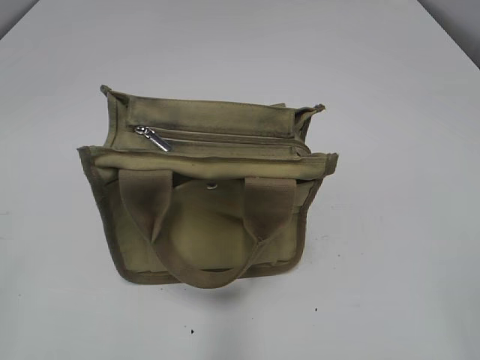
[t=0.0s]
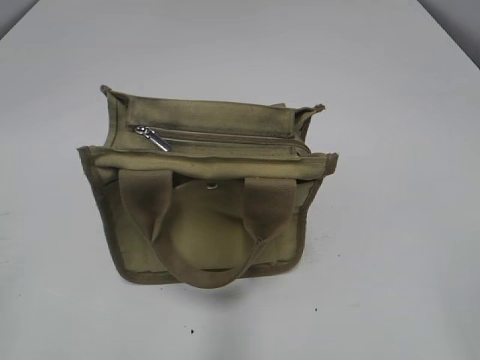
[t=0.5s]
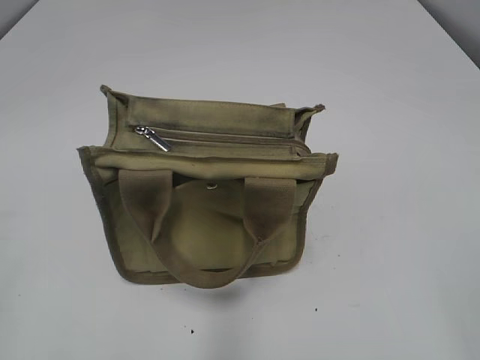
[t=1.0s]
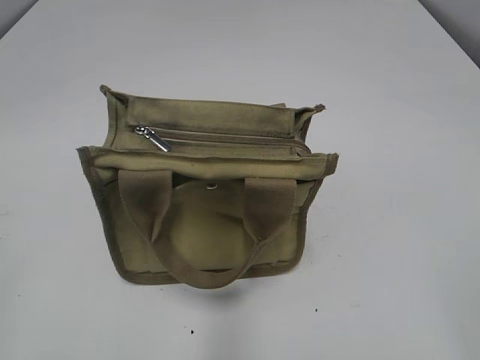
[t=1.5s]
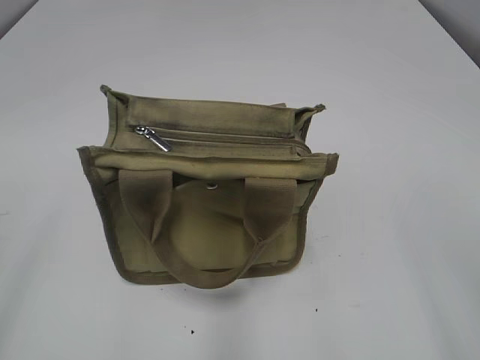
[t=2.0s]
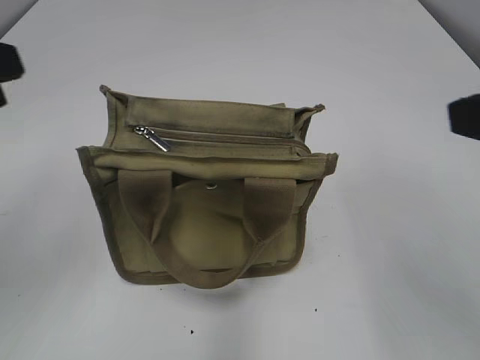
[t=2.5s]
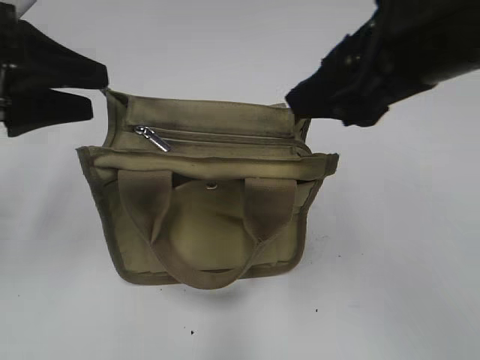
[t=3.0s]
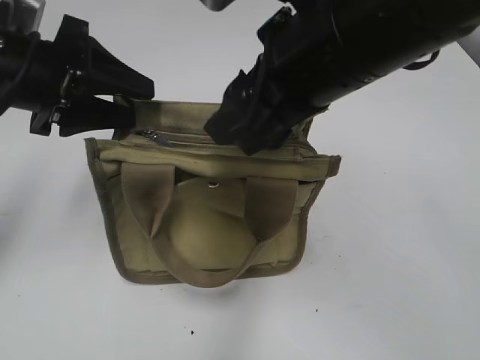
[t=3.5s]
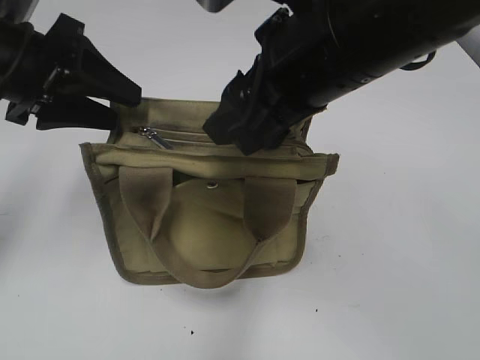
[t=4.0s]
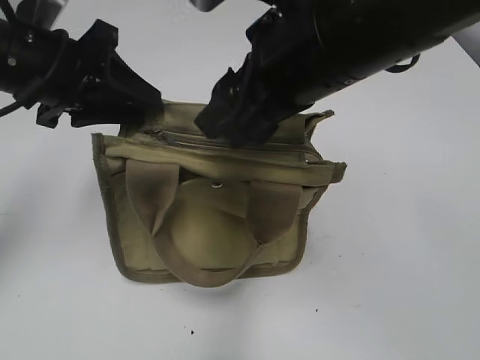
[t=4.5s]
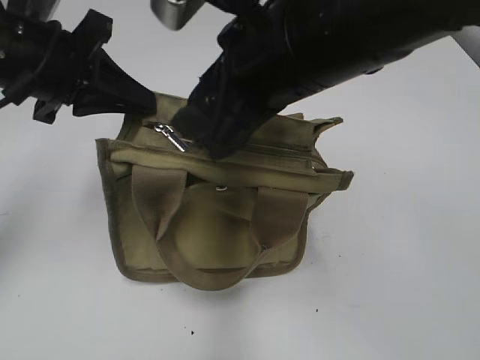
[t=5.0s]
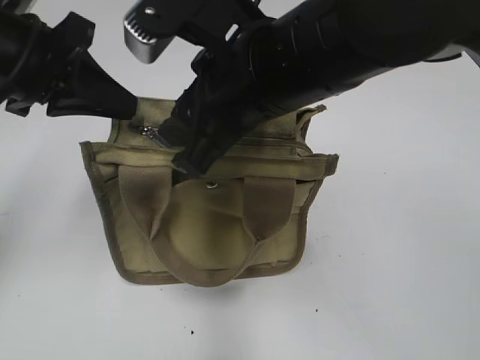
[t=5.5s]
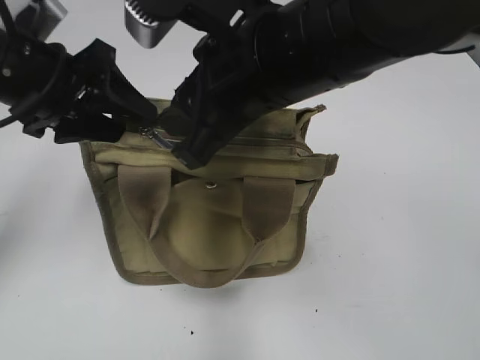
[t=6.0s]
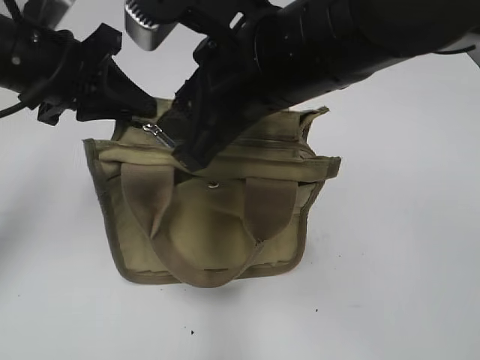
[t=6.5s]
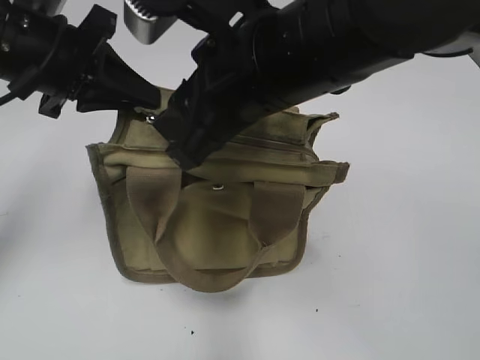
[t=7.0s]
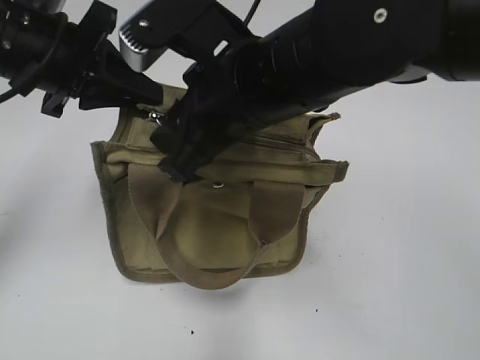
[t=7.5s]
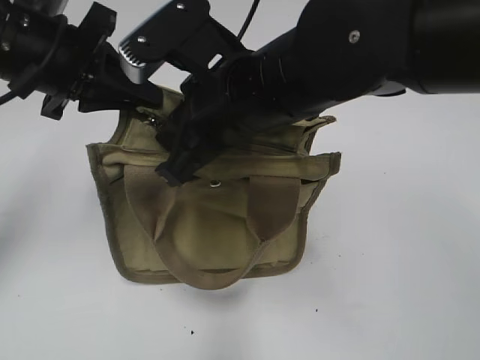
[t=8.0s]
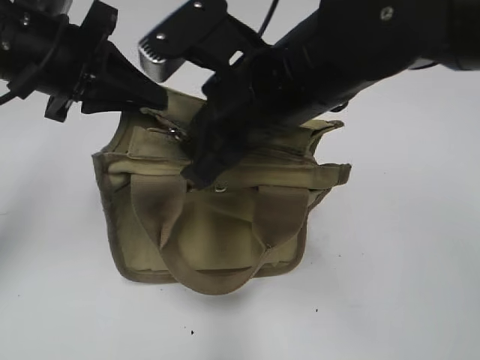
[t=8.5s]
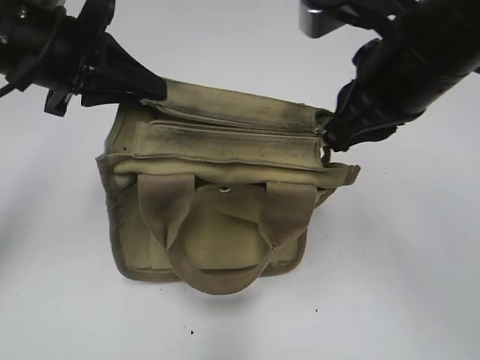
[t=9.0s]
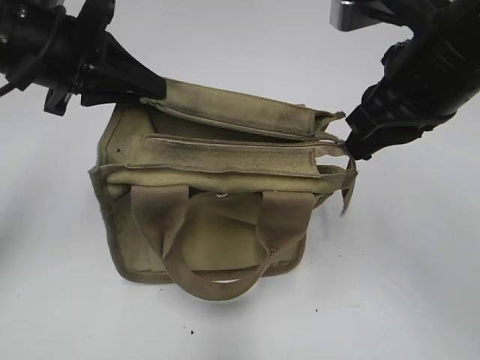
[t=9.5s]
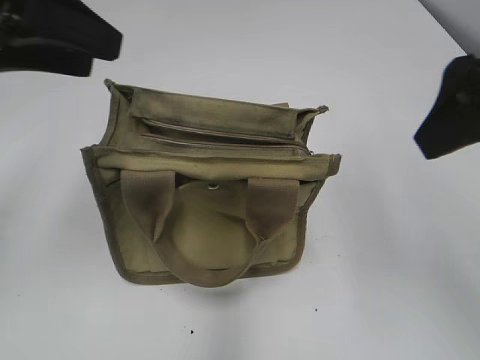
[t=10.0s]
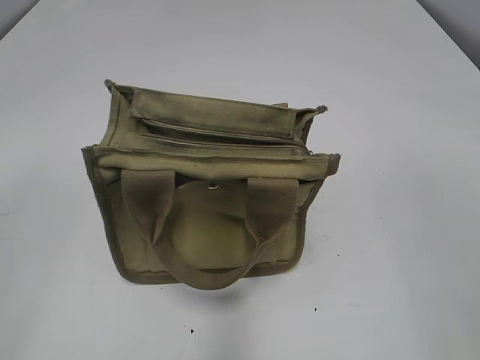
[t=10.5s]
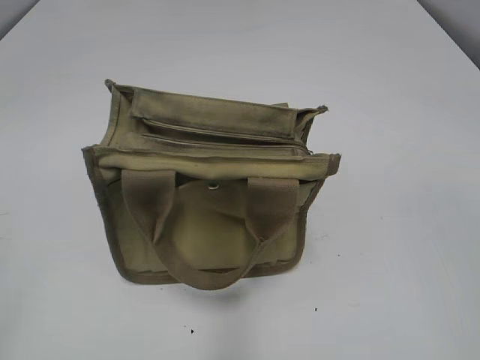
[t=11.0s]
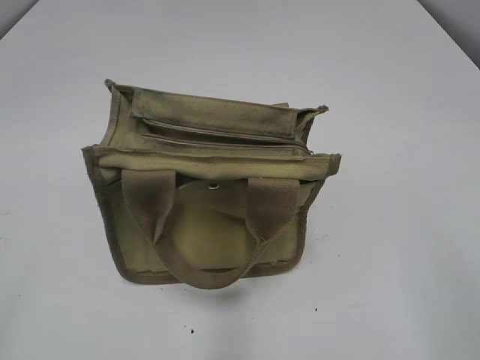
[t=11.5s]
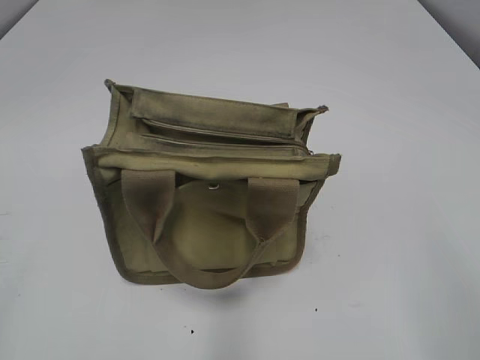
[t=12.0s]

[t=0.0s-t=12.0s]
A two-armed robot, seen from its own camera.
Step, t=0.0s to t=9.5s: Pull open the zipper with your right hand.
t=2.0s to t=4.0s: The right gripper heads forward and to the left, covering some 30 cm. The left gripper heads forward, covering some 25 cm.
t=4.0s to t=6.0s: The left gripper closes, then reopens.
t=6.0s to t=8.0s: The left gripper closes up; the right gripper closes.
t=8.0s to t=10.0s: The right gripper is displaced to the right and upward by some 20 cm, and opens its fingers, while the left gripper heads upward, covering approximately 5 cm, and opens up.
t=10.0s to t=12.0s: The right gripper travels backward and downward by approximately 20 cm; the left gripper is displaced backward and to the left by roughly 30 cm.

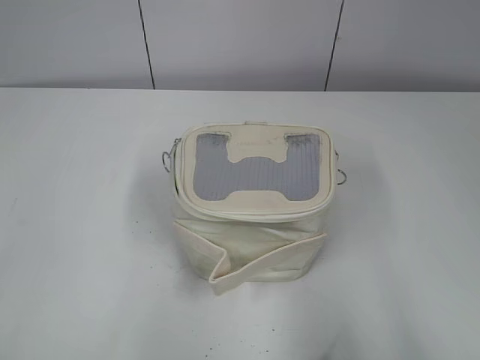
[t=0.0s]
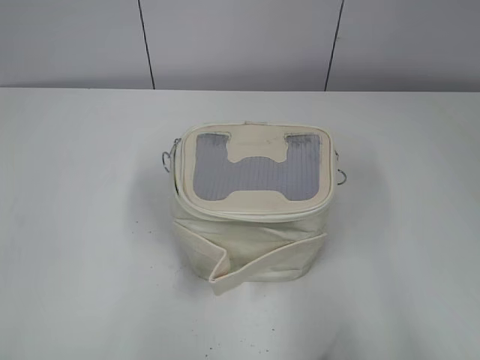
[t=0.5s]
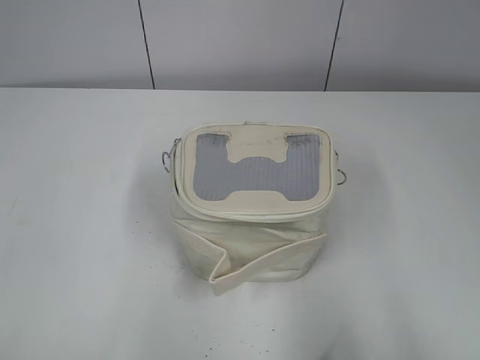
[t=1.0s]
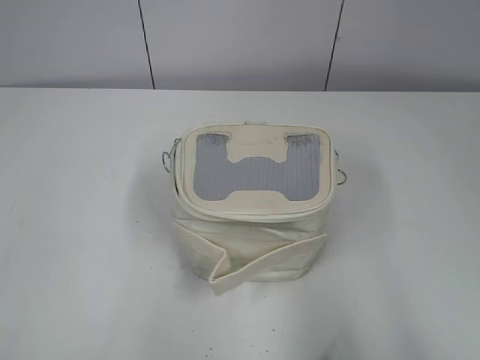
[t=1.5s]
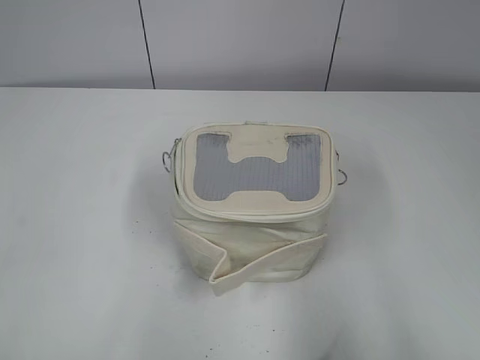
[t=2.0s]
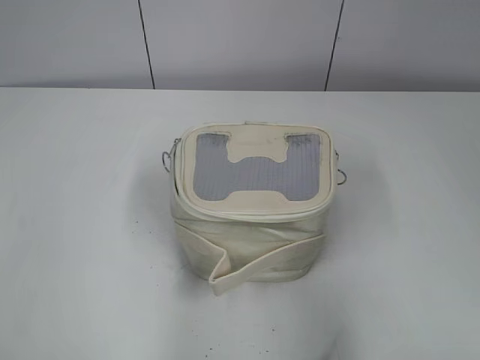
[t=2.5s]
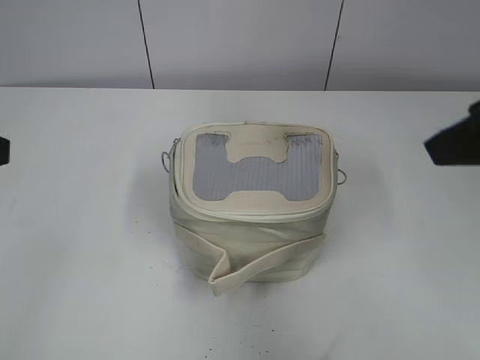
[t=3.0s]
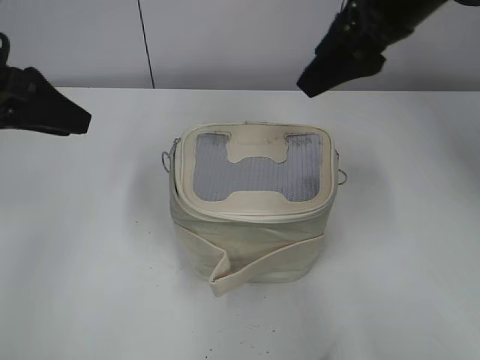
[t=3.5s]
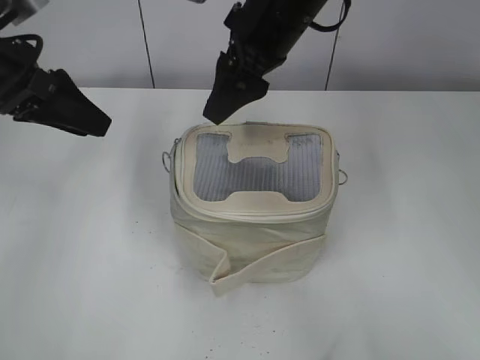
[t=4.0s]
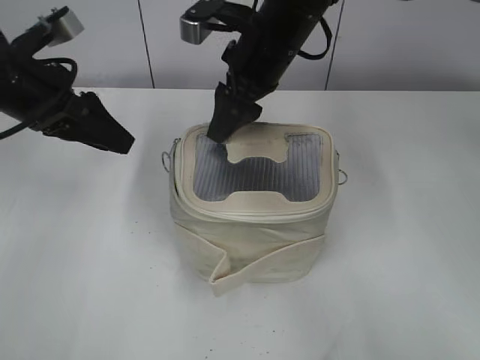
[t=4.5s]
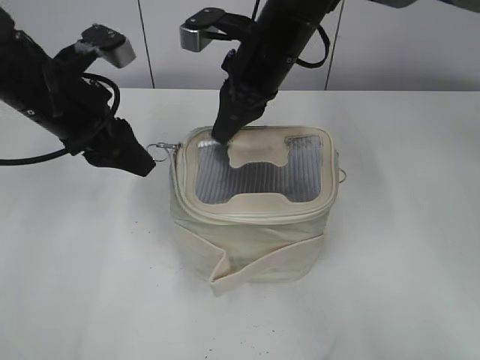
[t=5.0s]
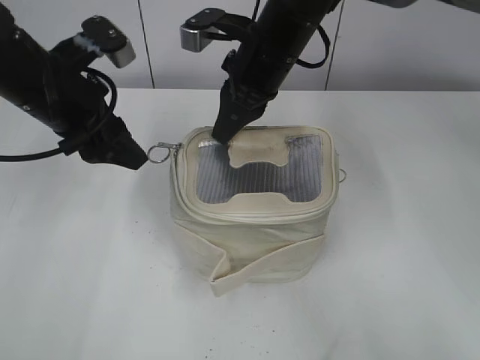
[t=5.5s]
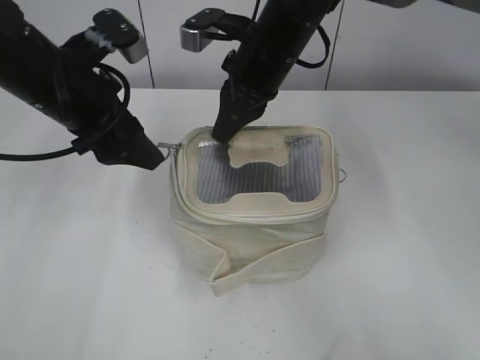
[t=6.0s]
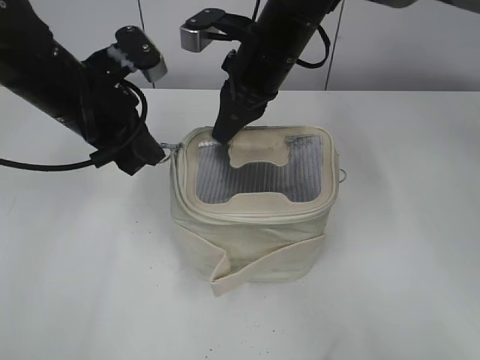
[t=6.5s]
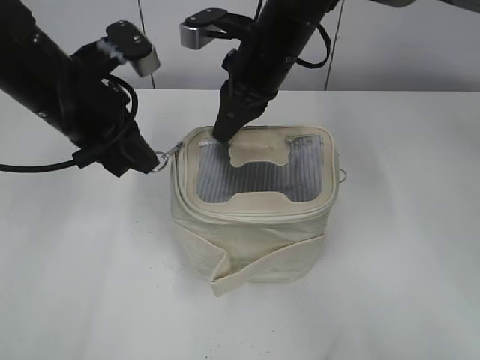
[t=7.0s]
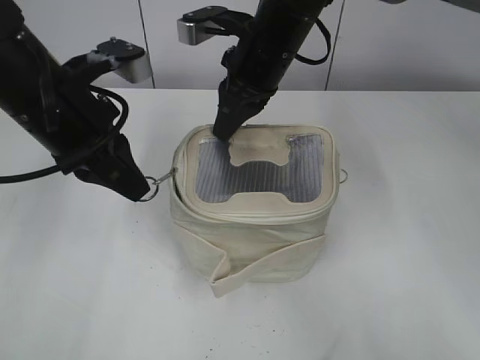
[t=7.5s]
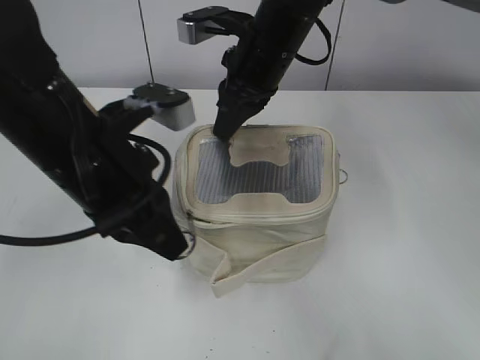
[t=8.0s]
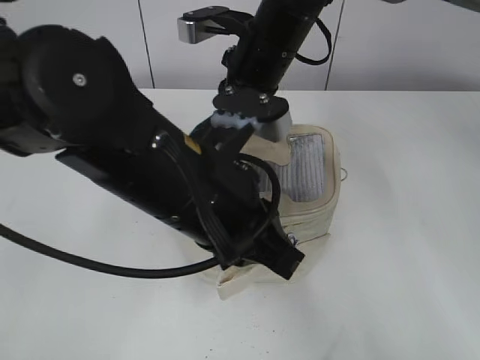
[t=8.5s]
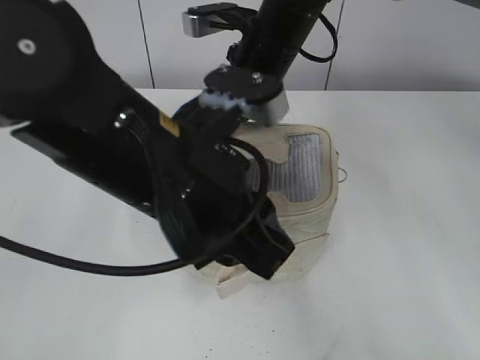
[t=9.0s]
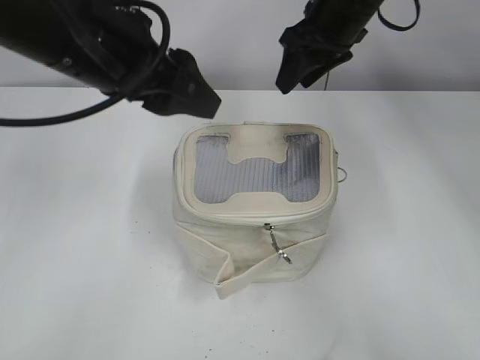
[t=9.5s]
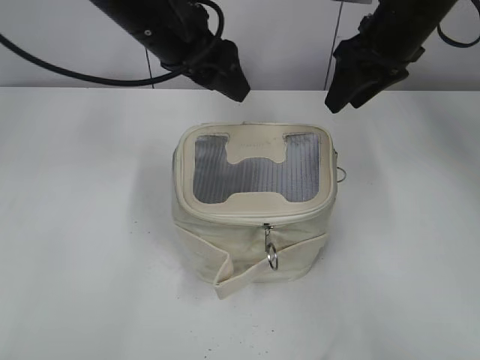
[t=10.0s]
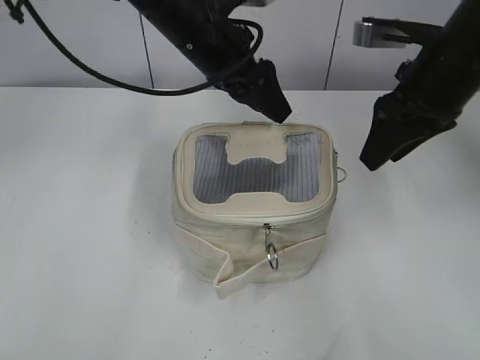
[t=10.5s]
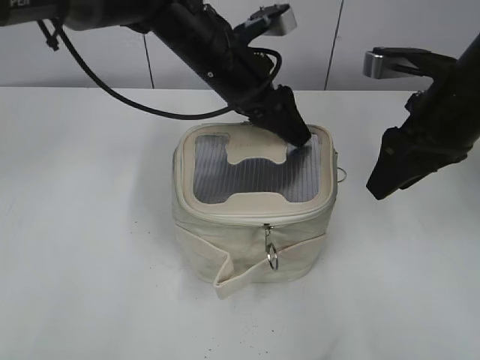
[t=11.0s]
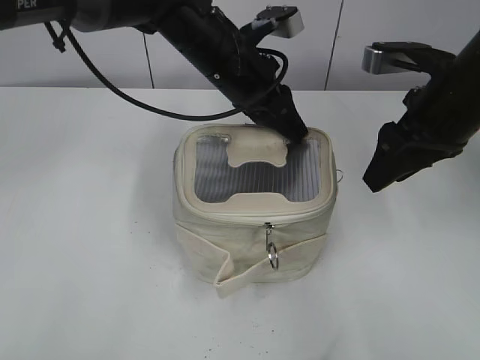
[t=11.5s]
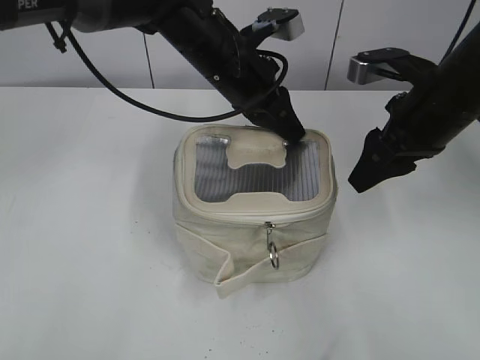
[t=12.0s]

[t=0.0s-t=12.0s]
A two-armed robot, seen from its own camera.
Step, t=0.0s to t=8.5s: Zip up the bag with your left hand.
t=2.0s to t=4.0s: The right gripper goes about 50 cm forward and to the left, while the left gripper moves forward, about 30 cm.
t=4.0s to t=6.0s: The left gripper travels to the right by approximately 5 cm. The right gripper moves downward, about 5 cm, and closes.
t=6.0s to t=8.0s: The left gripper moves backward, some 10 cm, and closes.
t=8.0s to t=10.0s: The right gripper moves to the right, roughly 15 cm, and opens its fingers. The left gripper travels forward by about 15 cm, and opens up.
t=10.0s to t=12.0s: The right gripper is displaced backward by about 10 cm. The left gripper goes about 10 cm to the right and downward, and closes its fingers.

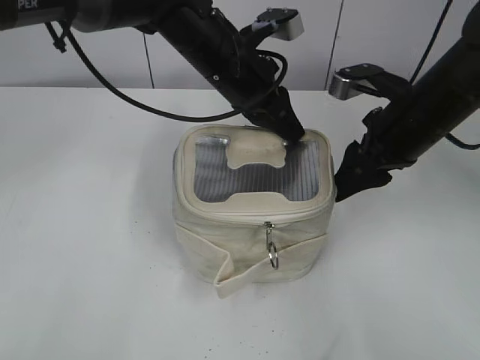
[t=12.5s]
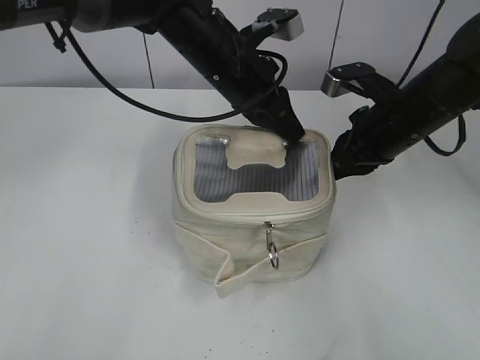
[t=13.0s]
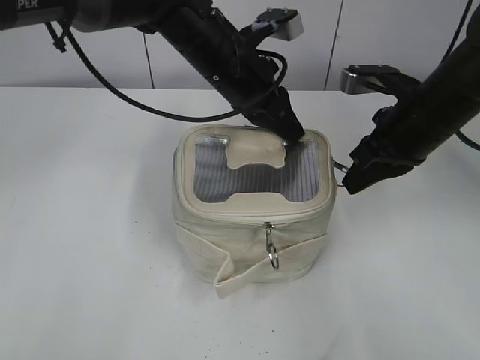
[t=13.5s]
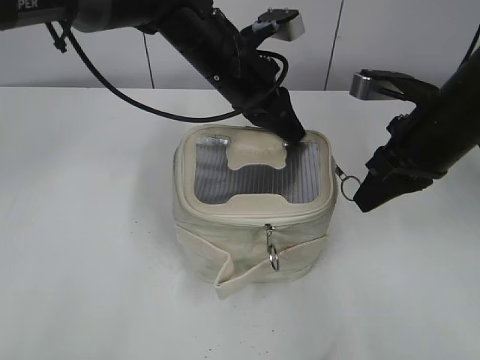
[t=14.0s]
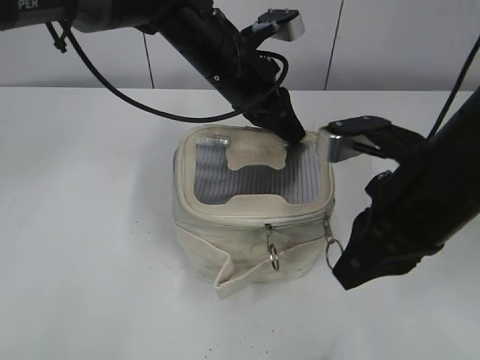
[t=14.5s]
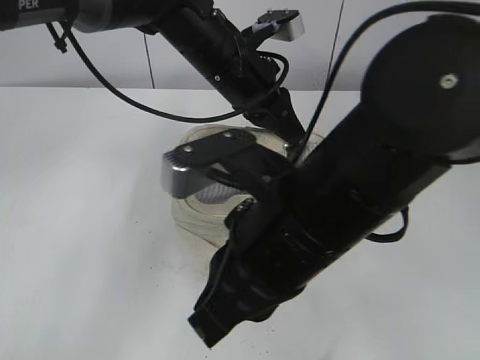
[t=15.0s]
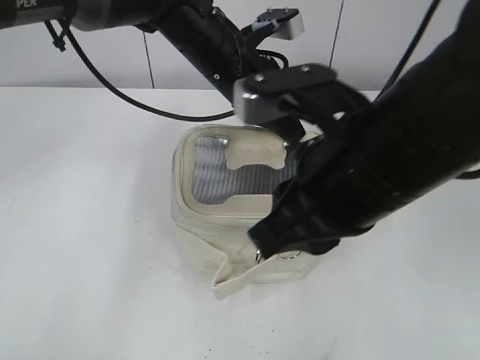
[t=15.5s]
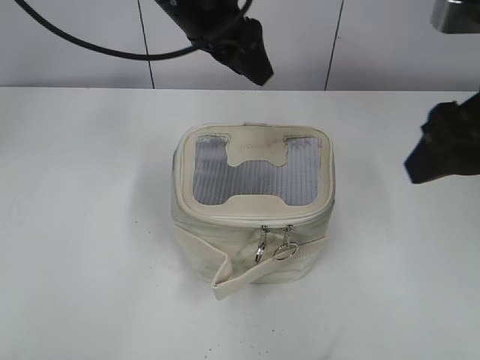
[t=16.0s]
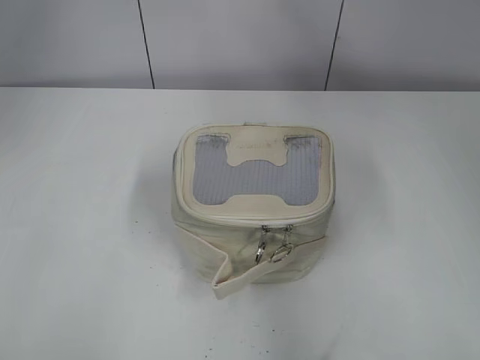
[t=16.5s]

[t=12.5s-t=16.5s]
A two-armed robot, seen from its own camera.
Step, t=12.5s to t=15.0s: Zip up the bag with your right hand.
t=12.5s to t=14.5s: The right gripper heads backward, covering roughly 10 cm, and closes up.
t=14.5s to t=16.5s: The right gripper travels upward and to the right by some 15 cm, and opens up. The left gripper is displaced upward and to the left by approximately 25 cm, and opens its fingers.
